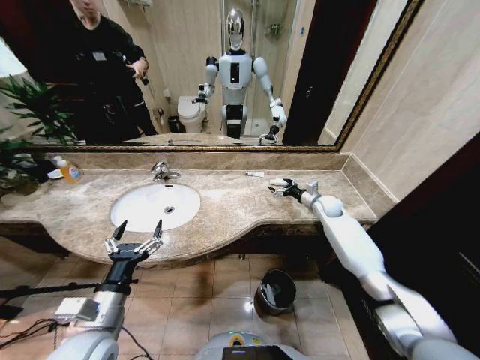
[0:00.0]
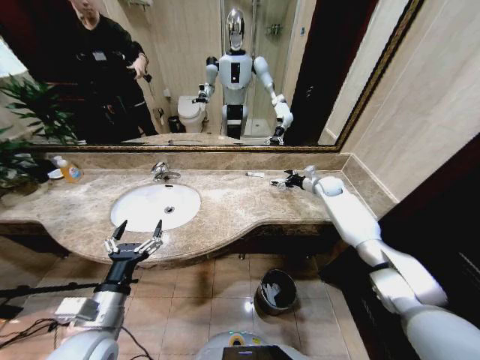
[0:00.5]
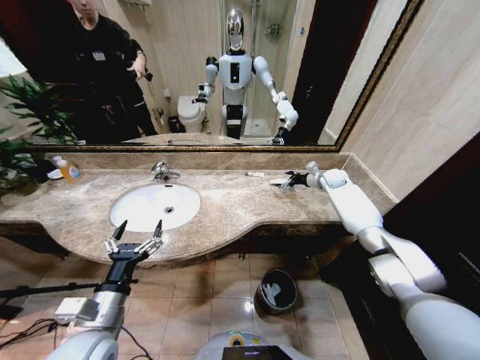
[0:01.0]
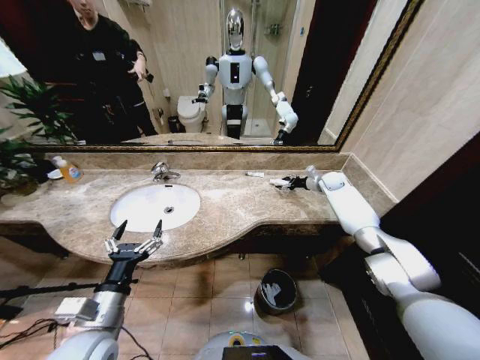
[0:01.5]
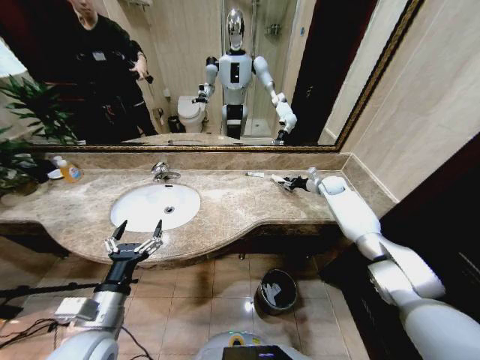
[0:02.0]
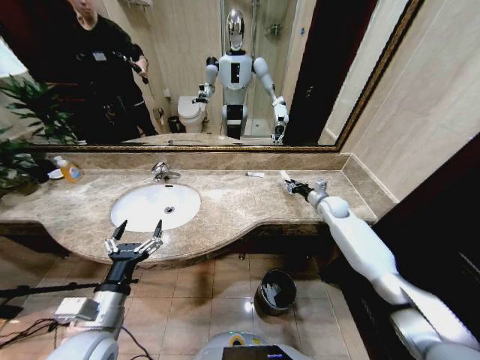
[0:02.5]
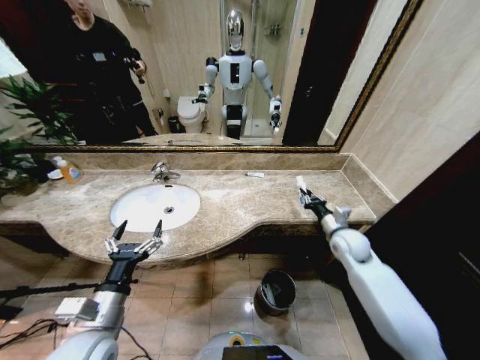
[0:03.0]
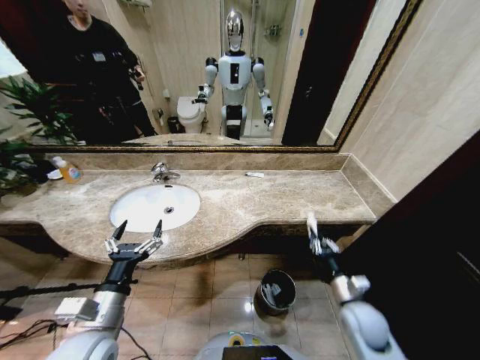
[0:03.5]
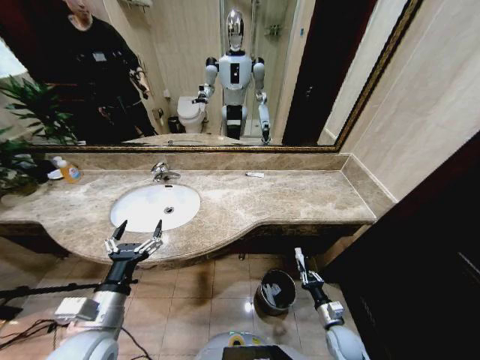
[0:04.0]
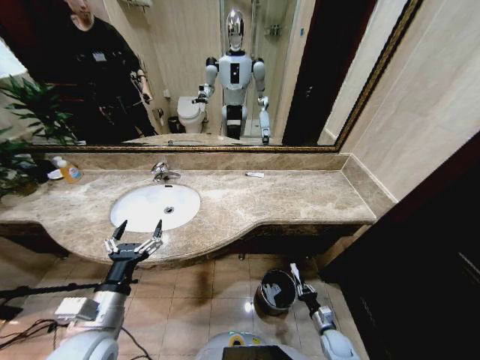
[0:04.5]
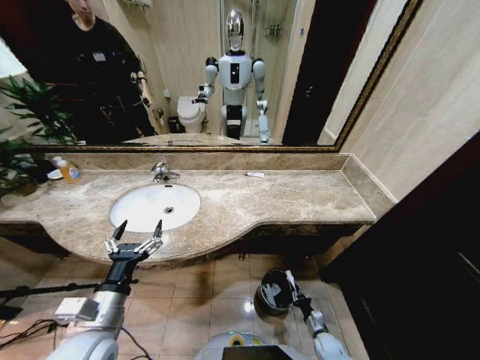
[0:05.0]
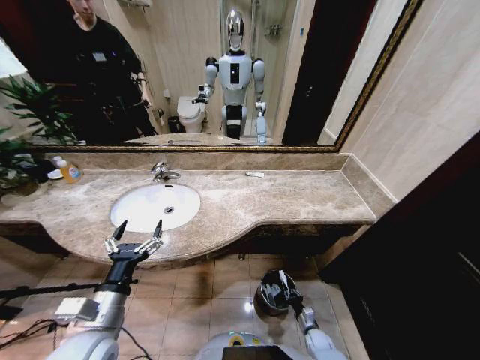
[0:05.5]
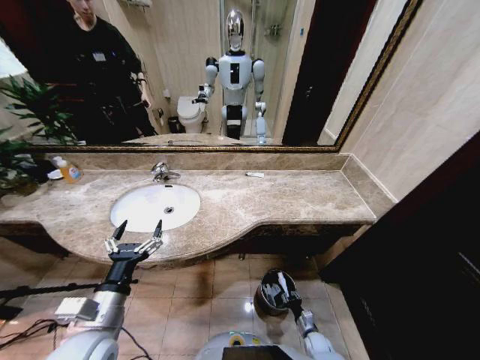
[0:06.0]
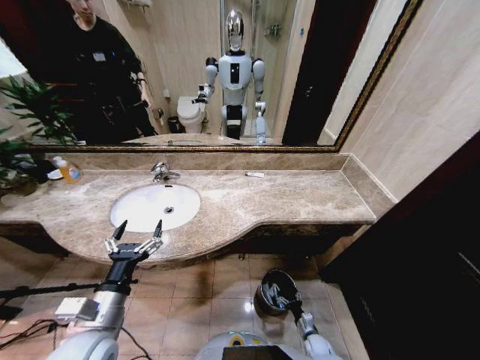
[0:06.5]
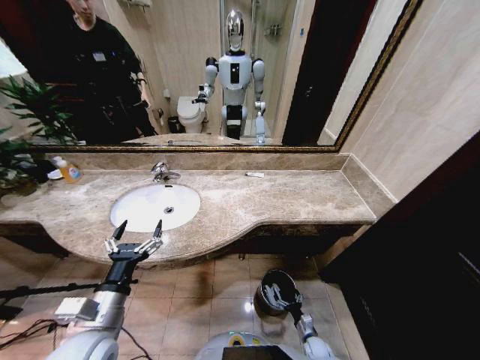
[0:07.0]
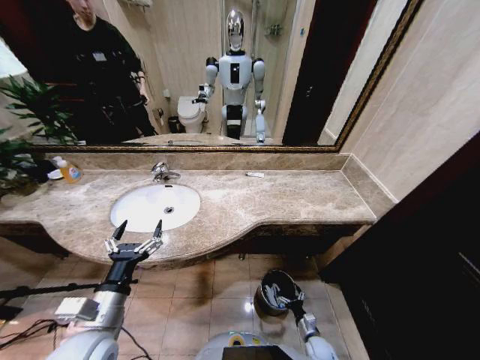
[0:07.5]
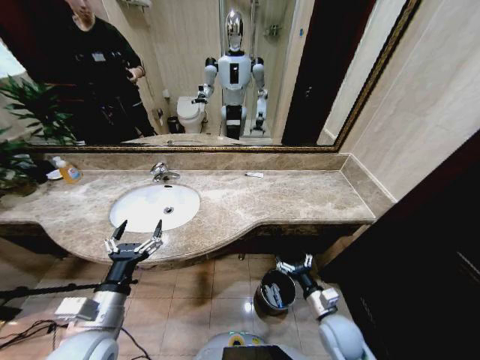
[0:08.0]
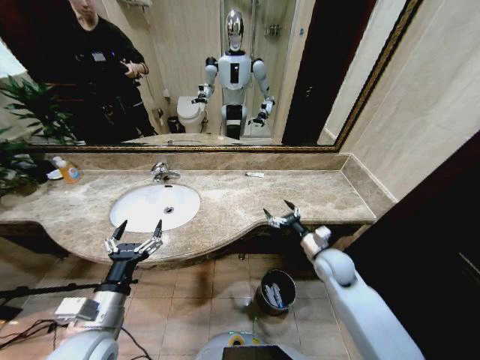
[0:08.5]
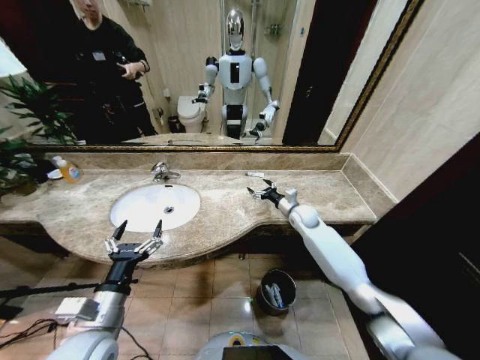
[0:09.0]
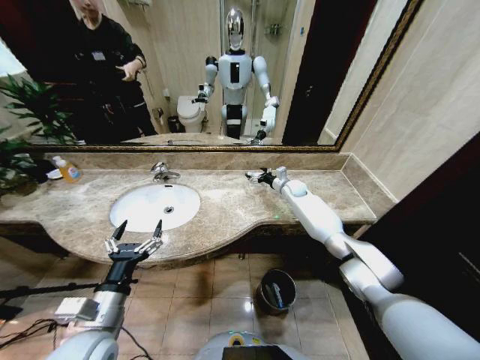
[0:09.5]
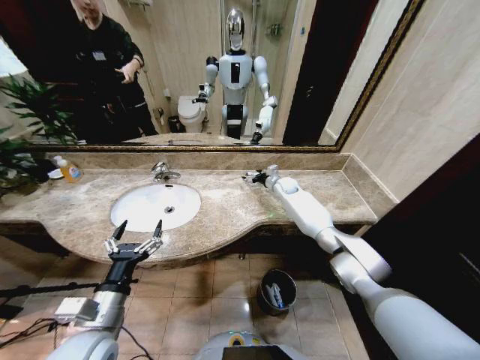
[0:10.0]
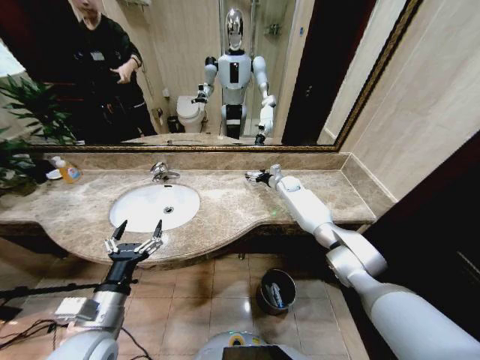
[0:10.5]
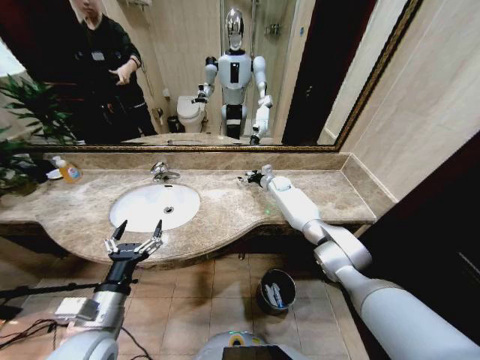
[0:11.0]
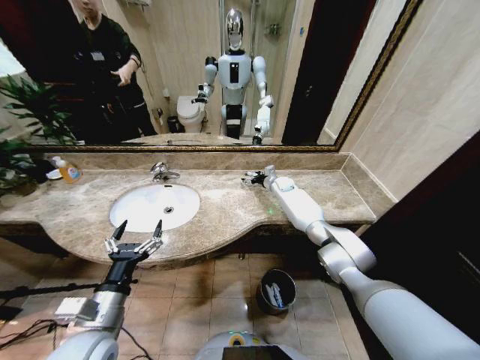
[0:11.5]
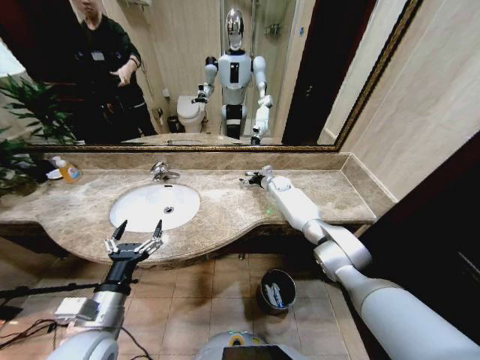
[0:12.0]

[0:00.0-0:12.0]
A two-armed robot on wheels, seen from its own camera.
Task of the whole recording: Pick up the trash from the sink and place it in the trash bin.
0:00.0 to 0:02.0: The right gripper shifts about 5 cm forward, and closes its fingers.
0:02.0 to 0:04.0: The right gripper is displaced backward and downward by approximately 50 cm.
0:04.0 to 0:06.0: The right gripper goes roughly 15 cm downward.
0:06.0 to 0:08.0: The right gripper goes roughly 25 cm upward, and opens its fingers.
0:08.0 to 0:10.0: The right gripper travels forward by about 50 cm.
0:10.0 to 0:12.0: There are only small adjustments of the grippers.

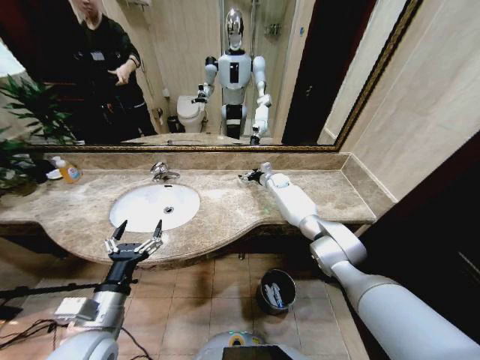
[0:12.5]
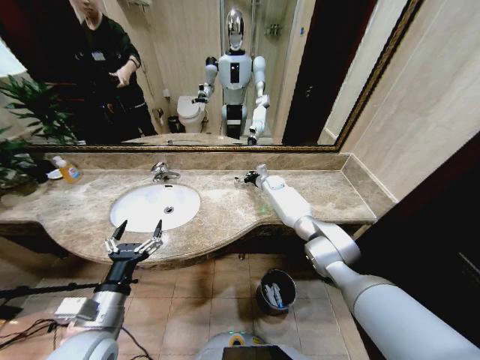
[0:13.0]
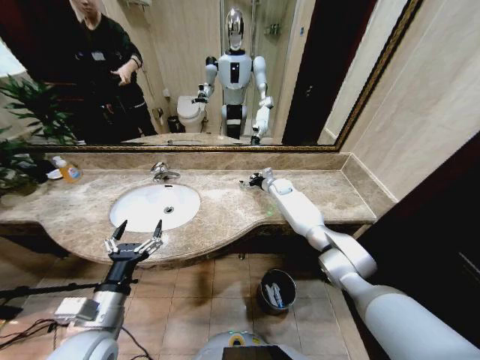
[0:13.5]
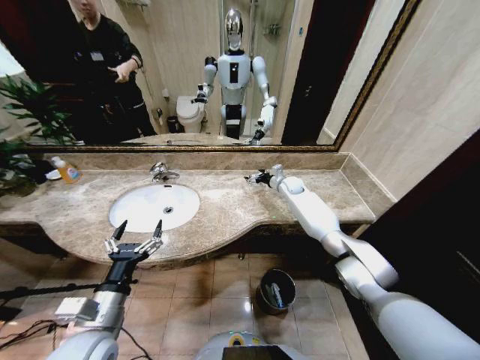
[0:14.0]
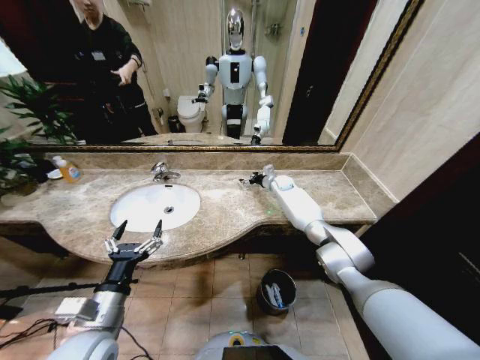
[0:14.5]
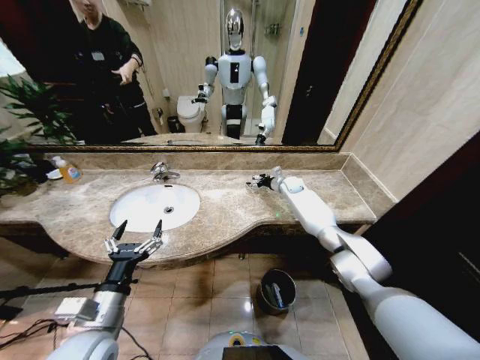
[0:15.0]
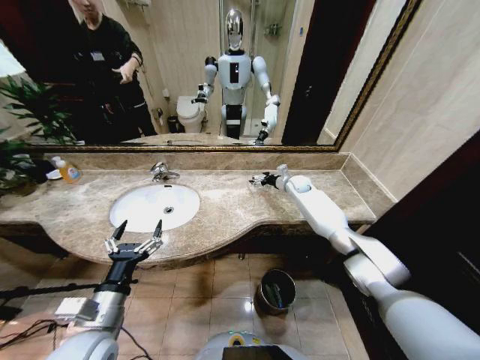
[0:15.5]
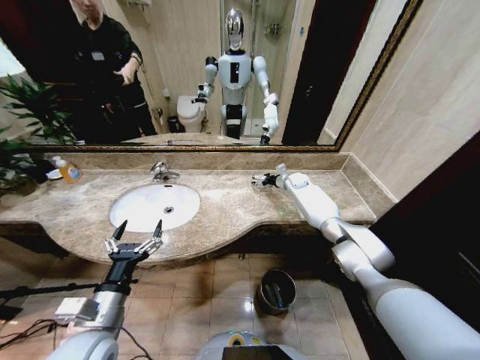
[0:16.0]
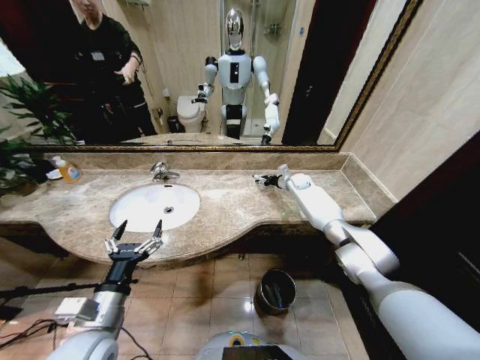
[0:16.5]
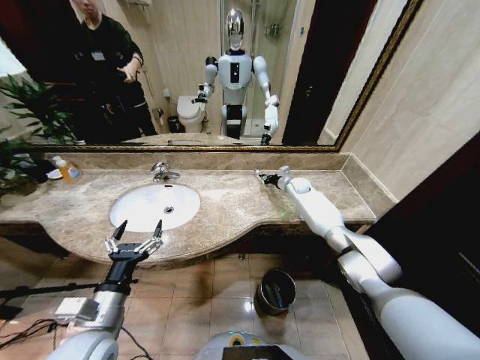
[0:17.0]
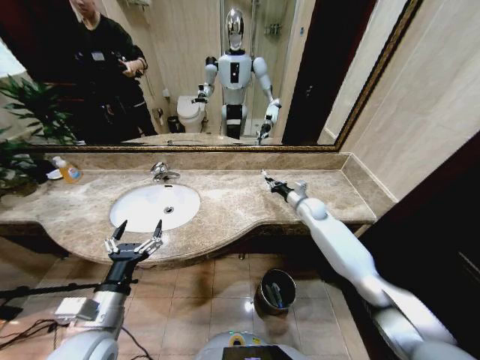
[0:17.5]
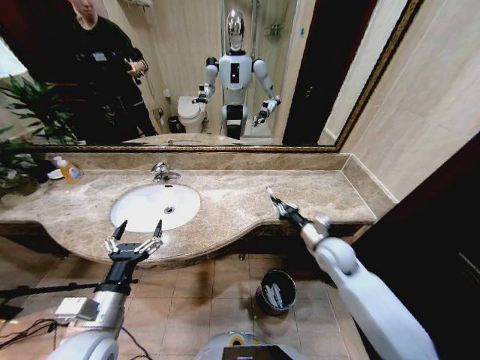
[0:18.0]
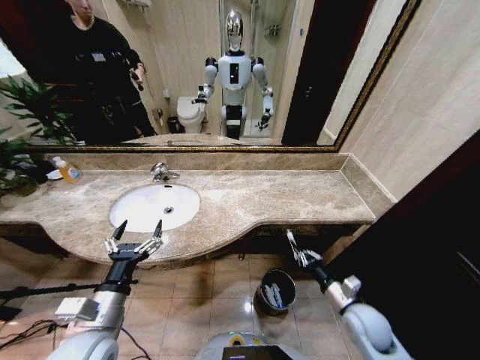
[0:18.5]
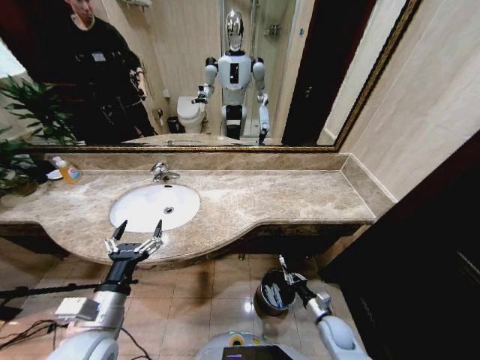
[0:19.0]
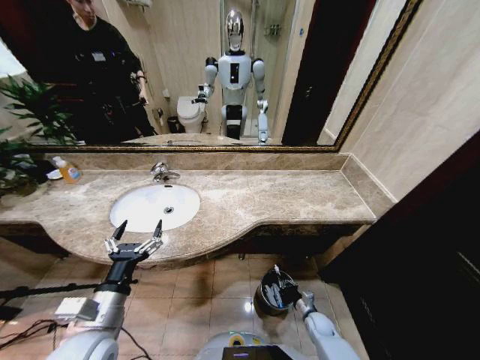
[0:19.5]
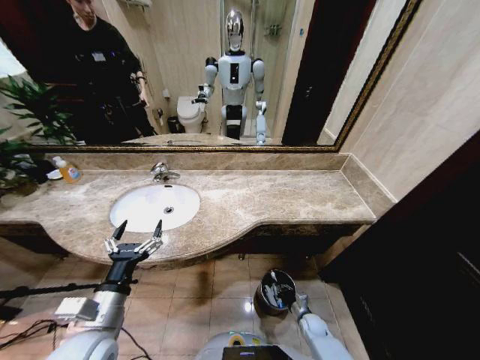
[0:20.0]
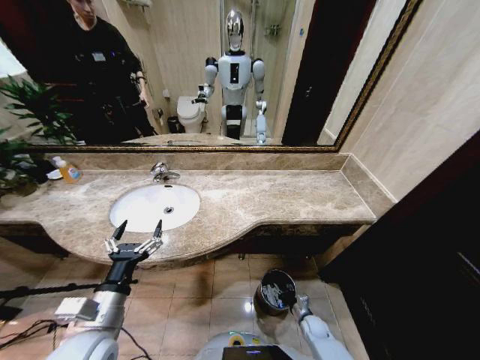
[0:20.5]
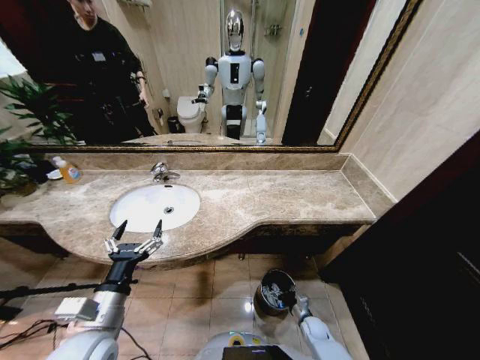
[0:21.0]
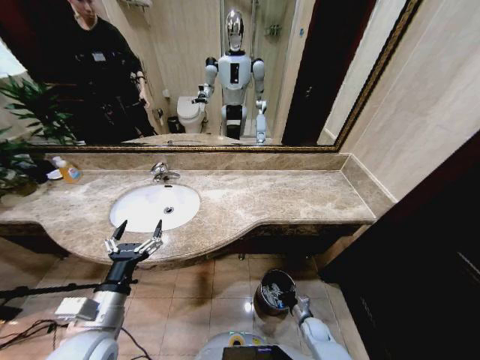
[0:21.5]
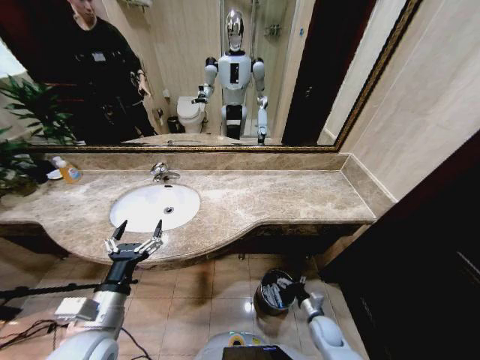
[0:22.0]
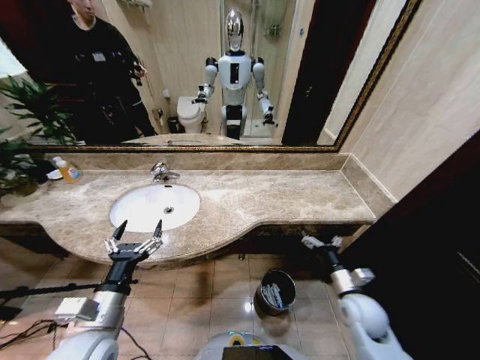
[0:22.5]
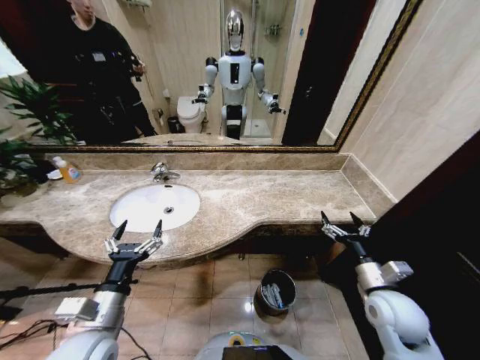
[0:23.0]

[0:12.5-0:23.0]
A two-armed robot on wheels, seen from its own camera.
Task of the whole recording: Pick up the trash from the sink and place it in the trash bin.
0:14.5 to 0:16.5: The right gripper moves to the right, roughly 5 cm, and closes up.
0:16.5 to 0:19.0: The right gripper goes about 50 cm backward and downward, and closes up.
0:19.0 to 0:21.0: The right gripper is displaced downward by approximately 10 cm, and opens.
0:21.0 to 0:23.0: The right gripper shifts approximately 35 cm upward.

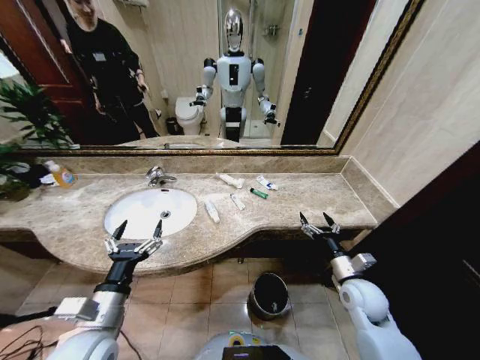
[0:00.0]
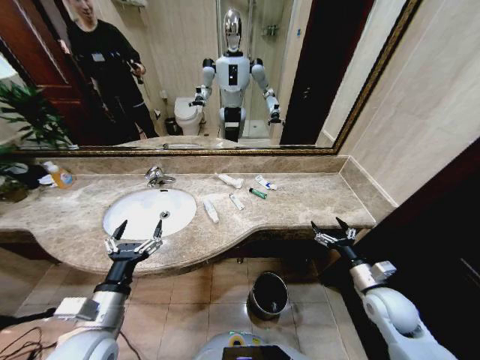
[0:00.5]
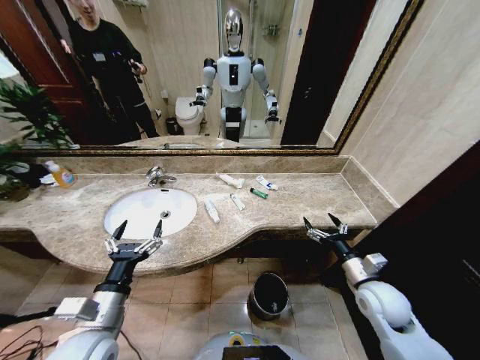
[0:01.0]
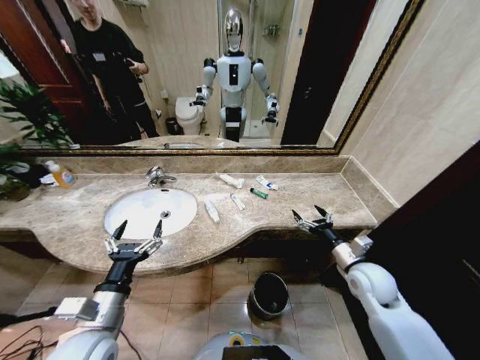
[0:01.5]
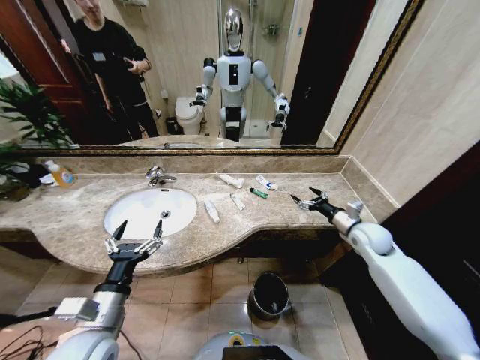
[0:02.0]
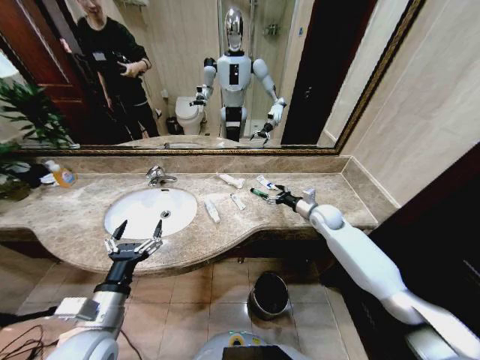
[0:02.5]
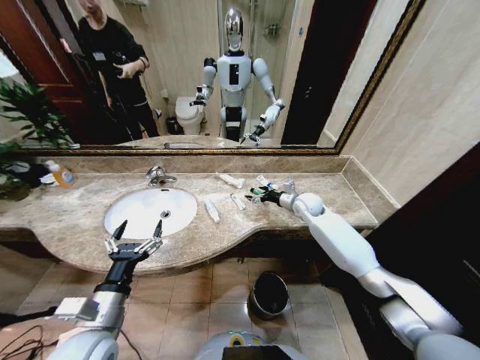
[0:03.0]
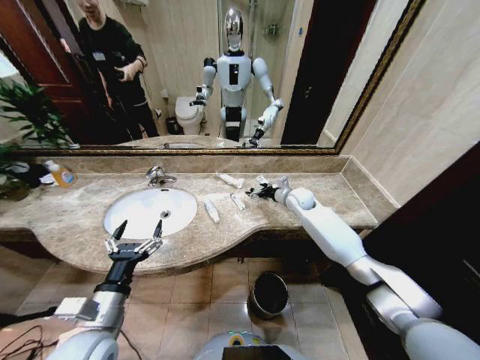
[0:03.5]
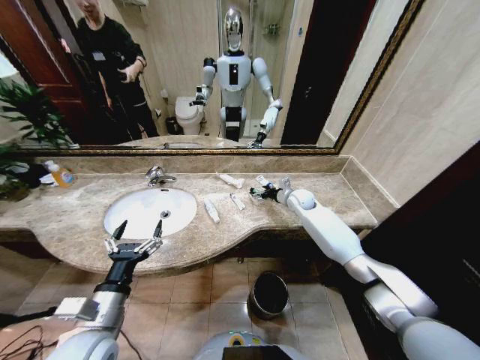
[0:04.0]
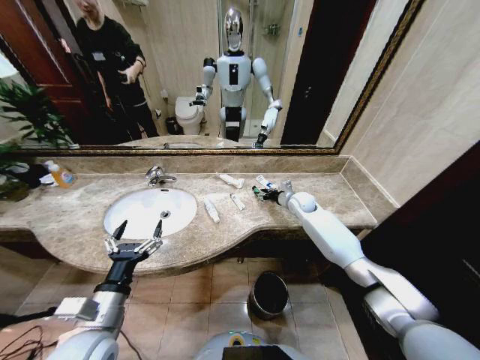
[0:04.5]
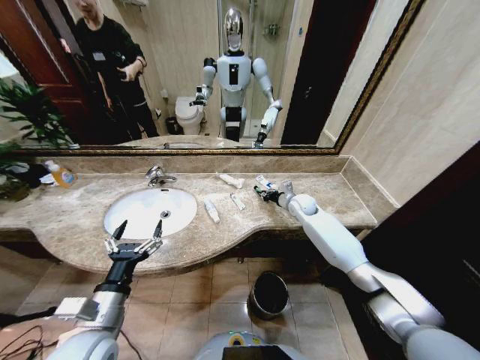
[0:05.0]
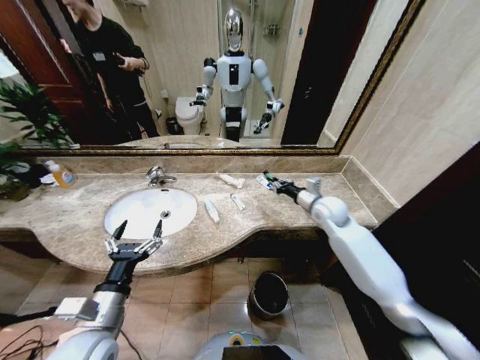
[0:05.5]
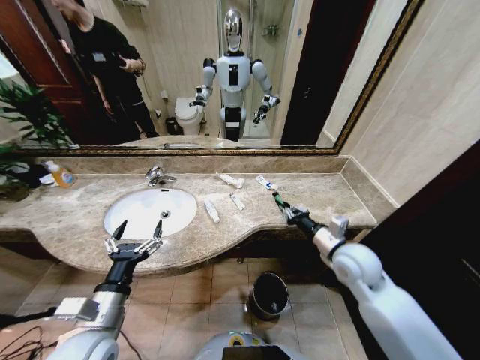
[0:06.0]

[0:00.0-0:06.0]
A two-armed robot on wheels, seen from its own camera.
Task of the whole recording: Pick up the trash from the sink and place it in the trash bin.
0:02.0 to 0:04.0: The right gripper moves forward and to the left, about 20 cm.
0:04.0 to 0:06.0: The right gripper is displaced backward by about 25 cm, and closes its fingers.
